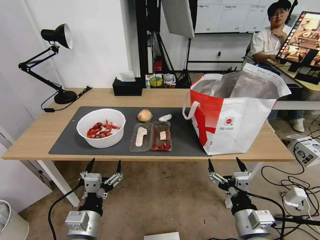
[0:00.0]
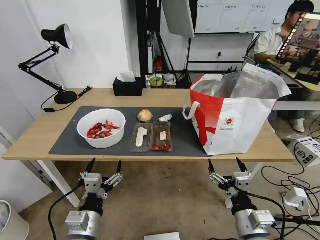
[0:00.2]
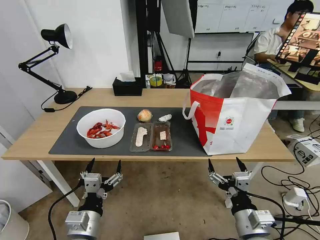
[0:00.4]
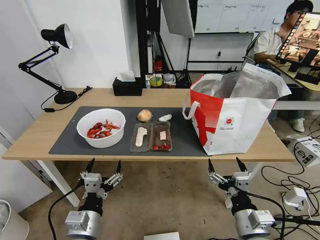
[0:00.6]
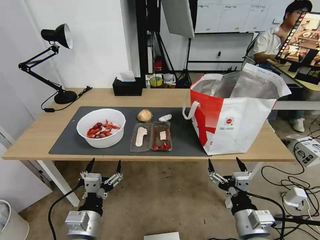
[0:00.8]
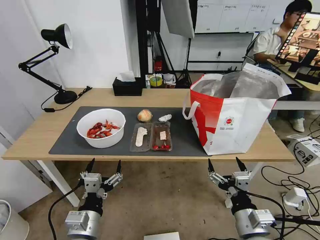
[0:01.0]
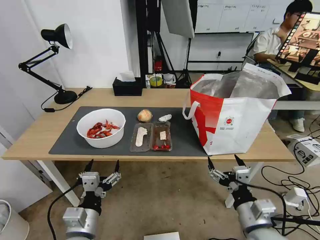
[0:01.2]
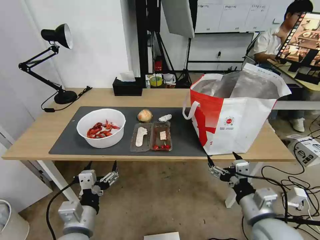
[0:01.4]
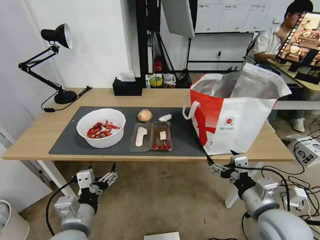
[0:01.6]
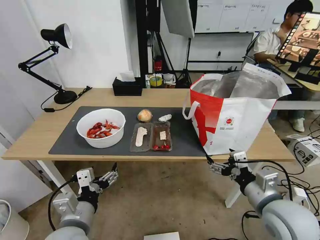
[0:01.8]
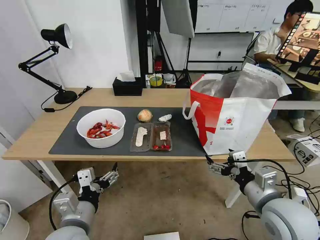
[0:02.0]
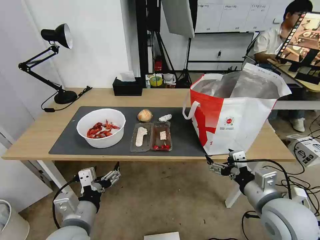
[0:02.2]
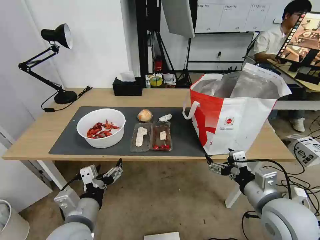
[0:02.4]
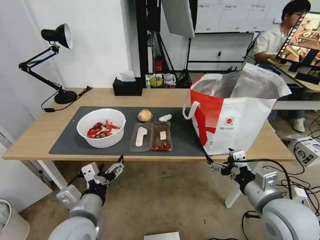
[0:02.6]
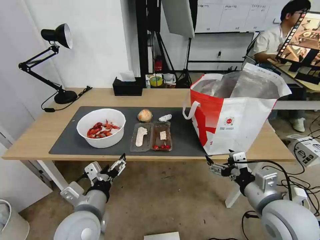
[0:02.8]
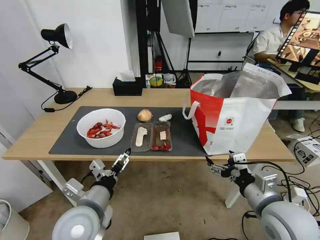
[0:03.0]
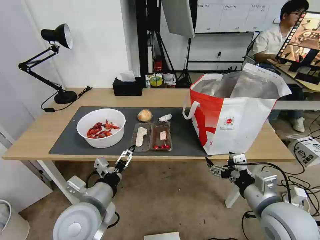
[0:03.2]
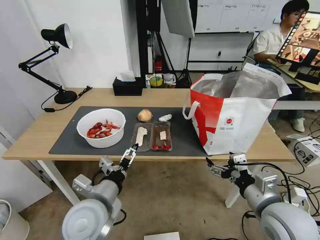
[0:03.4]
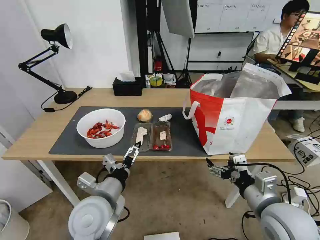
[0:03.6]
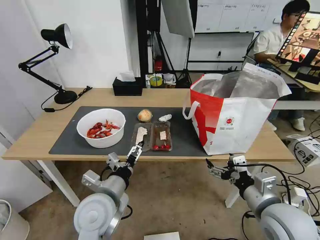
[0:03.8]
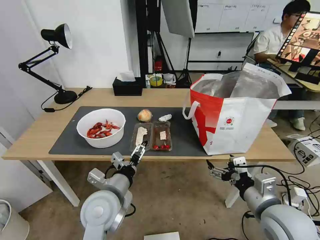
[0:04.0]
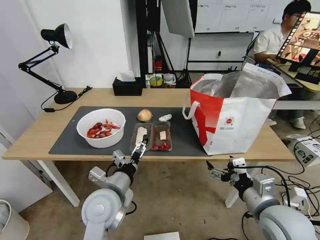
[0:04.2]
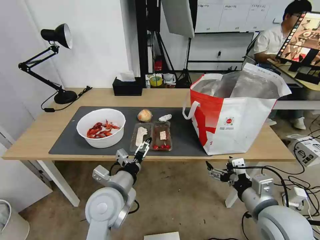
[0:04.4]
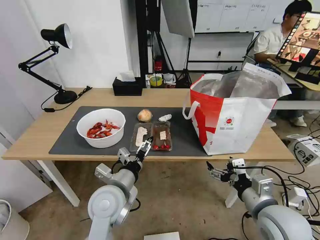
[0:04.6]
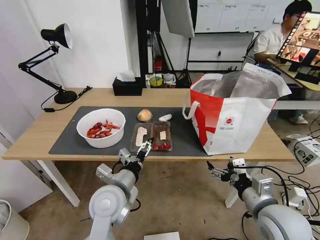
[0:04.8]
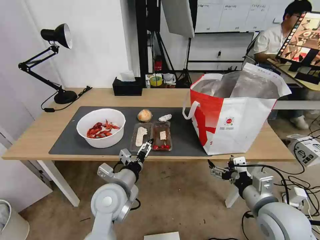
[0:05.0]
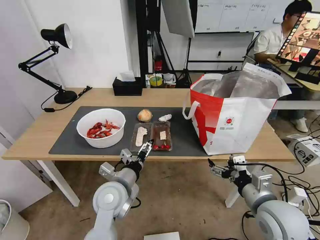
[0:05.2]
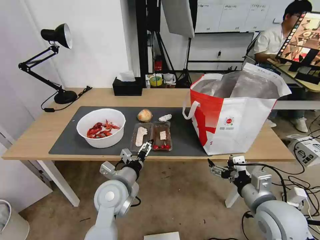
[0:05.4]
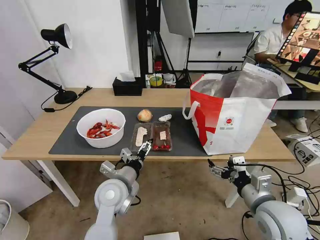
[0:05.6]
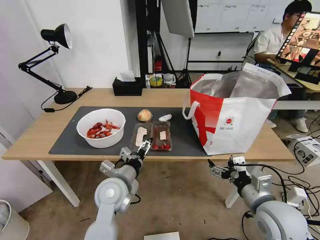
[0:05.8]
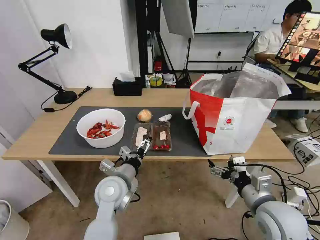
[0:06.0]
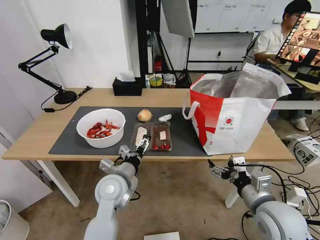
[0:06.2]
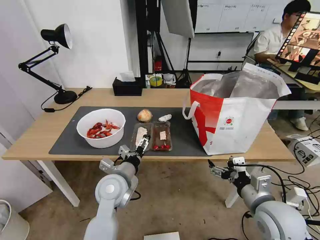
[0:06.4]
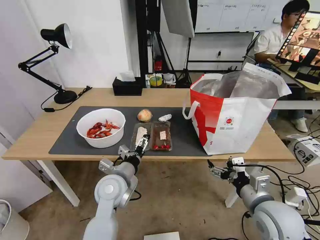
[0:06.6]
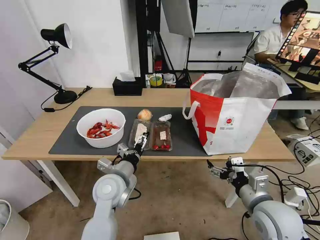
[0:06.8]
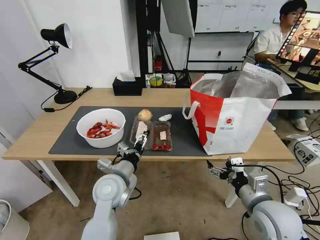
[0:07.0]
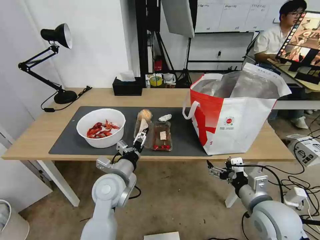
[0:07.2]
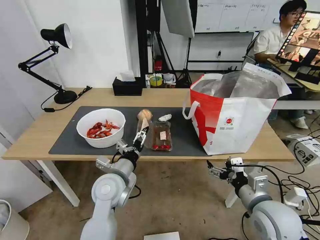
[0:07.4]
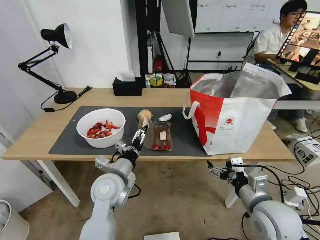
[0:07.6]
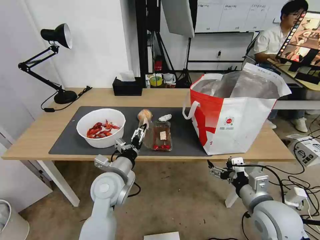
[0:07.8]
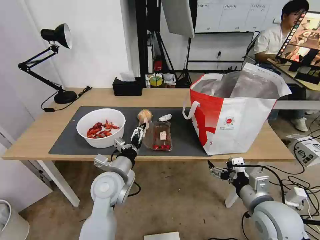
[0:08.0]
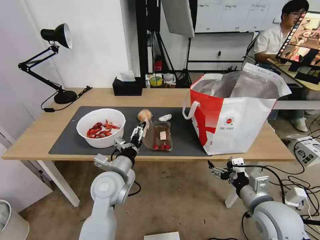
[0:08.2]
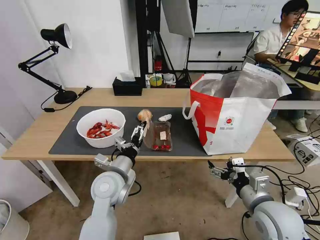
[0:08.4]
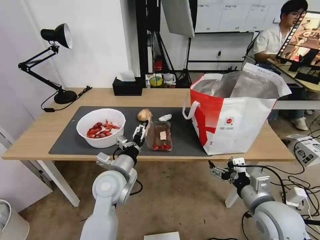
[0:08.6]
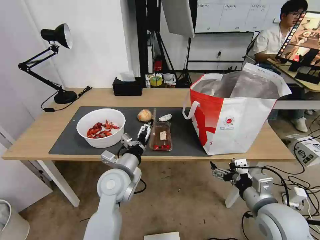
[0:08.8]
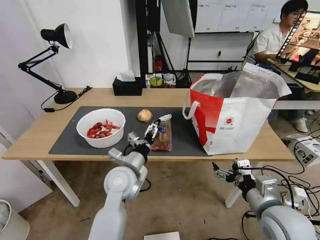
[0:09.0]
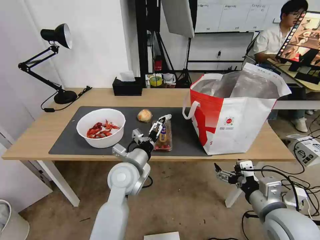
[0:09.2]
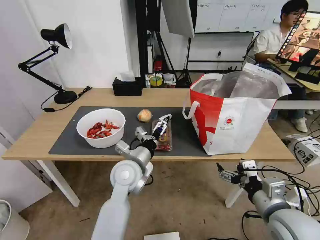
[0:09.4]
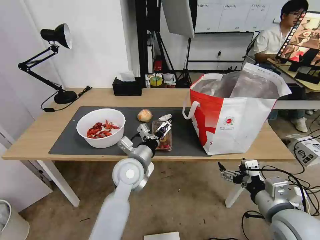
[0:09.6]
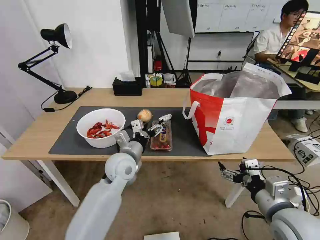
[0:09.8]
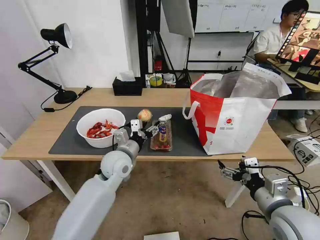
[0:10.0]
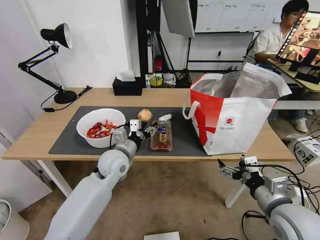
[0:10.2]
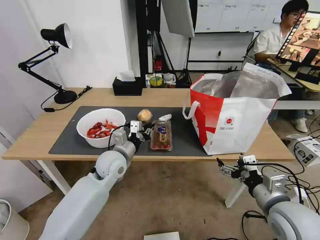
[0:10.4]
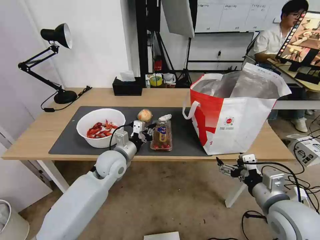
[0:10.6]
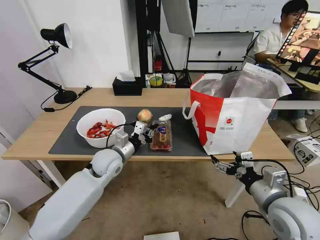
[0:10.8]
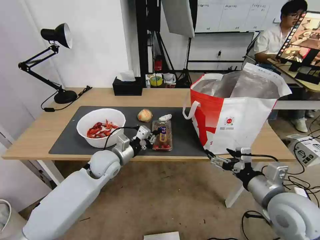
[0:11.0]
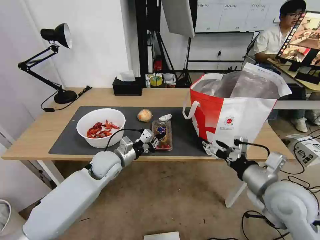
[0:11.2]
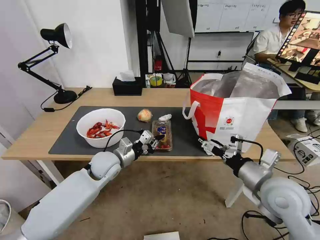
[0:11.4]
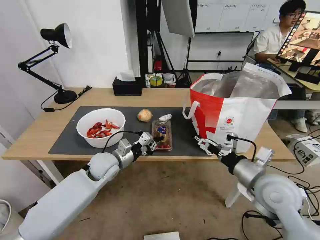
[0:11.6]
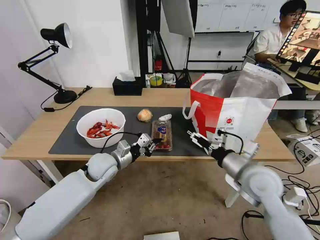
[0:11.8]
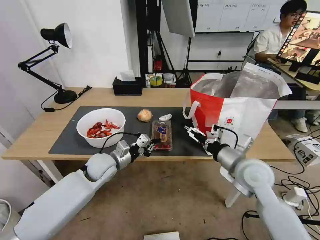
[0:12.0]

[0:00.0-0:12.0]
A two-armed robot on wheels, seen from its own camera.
Task of the whole recording: Pick up the trash from the table and place it into the takeout bag.
0:01.6 to 0:03.0: The left gripper moves approximately 5 cm.
0:03.0 to 0:04.4: The left gripper shifts roughly 5 cm forward.
0:04.4 to 0:06.0: The left gripper moves forward, about 5 cm.
0:06.0 to 0:09.0: The grippers stay close to where they were, moving slightly.
0:09.0 to 0:10.4: The left gripper heads forward, covering some 5 cm, and closes.
0:10.4 to 0:12.0: The left gripper moves about 5 cm, while the right gripper moves forward, roughly 10 cm.

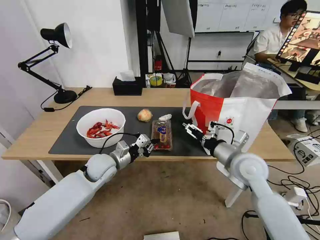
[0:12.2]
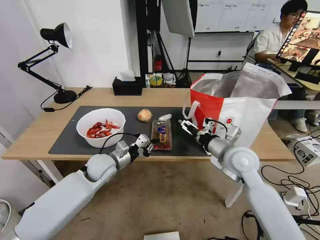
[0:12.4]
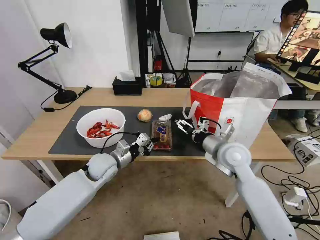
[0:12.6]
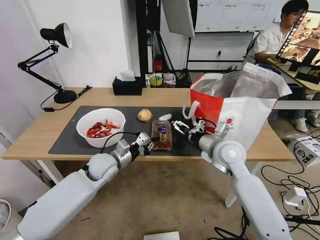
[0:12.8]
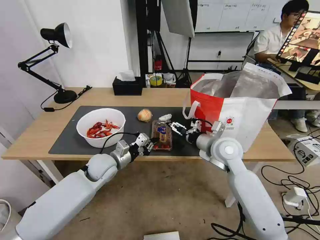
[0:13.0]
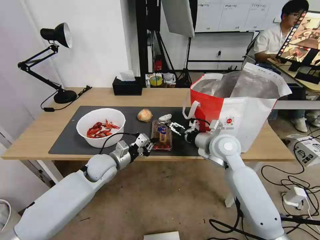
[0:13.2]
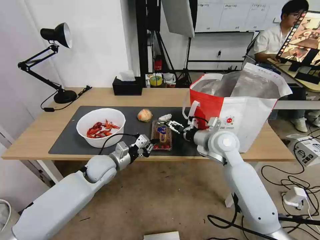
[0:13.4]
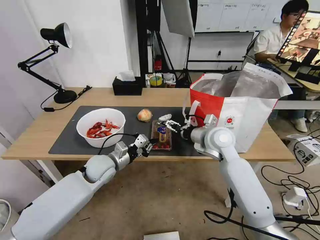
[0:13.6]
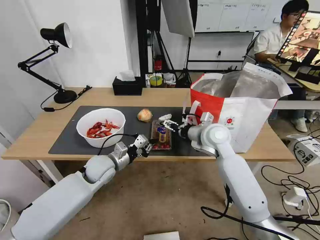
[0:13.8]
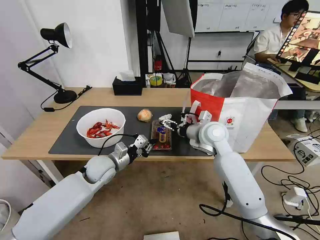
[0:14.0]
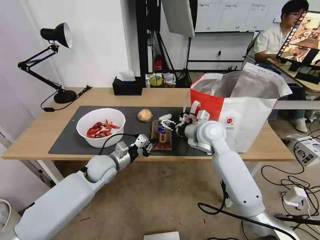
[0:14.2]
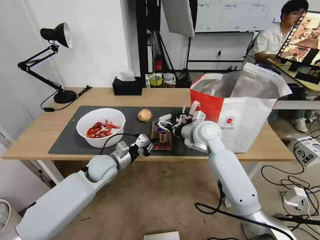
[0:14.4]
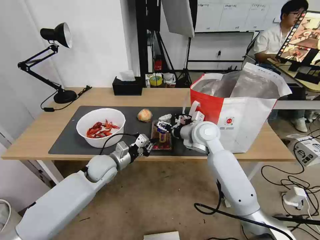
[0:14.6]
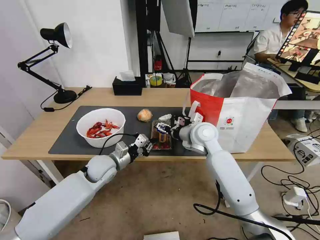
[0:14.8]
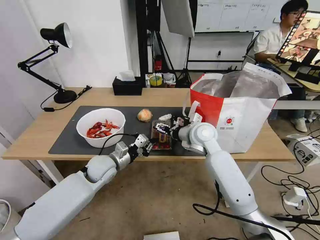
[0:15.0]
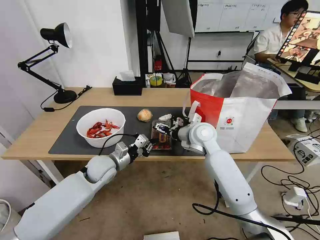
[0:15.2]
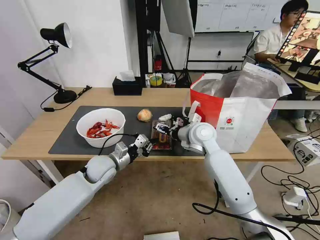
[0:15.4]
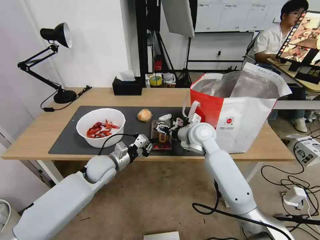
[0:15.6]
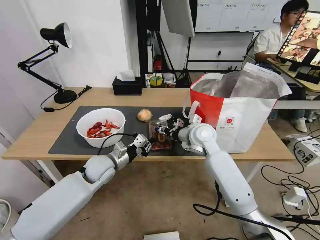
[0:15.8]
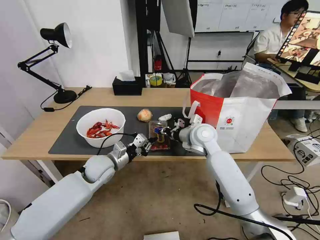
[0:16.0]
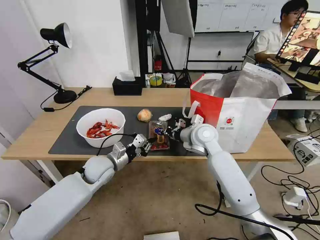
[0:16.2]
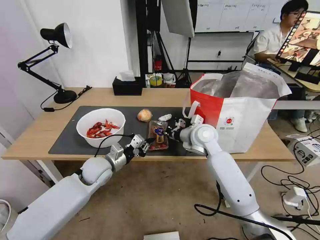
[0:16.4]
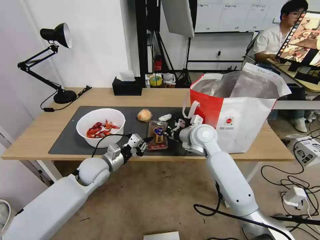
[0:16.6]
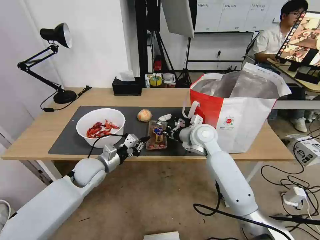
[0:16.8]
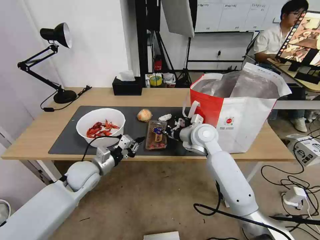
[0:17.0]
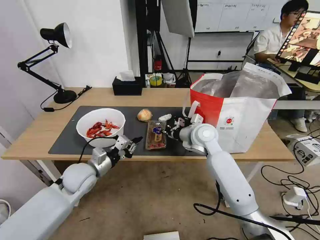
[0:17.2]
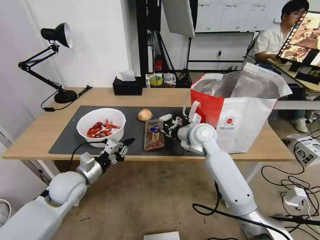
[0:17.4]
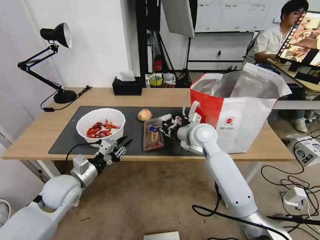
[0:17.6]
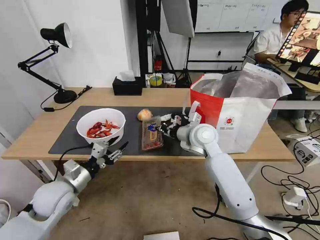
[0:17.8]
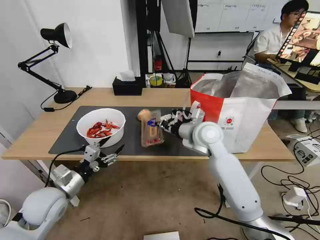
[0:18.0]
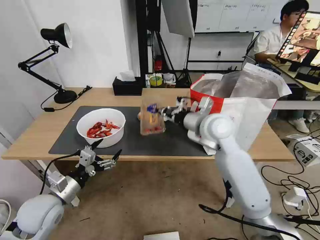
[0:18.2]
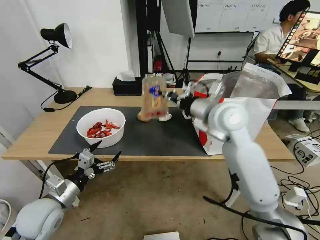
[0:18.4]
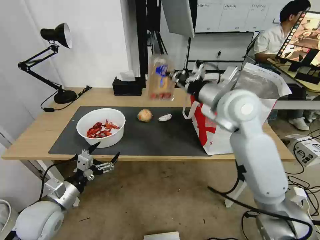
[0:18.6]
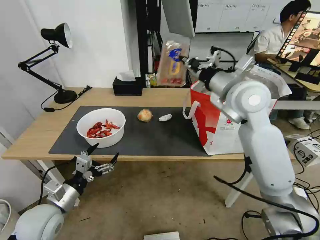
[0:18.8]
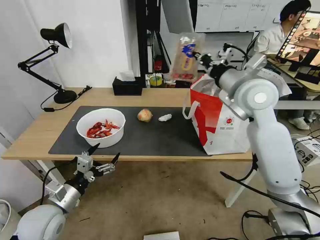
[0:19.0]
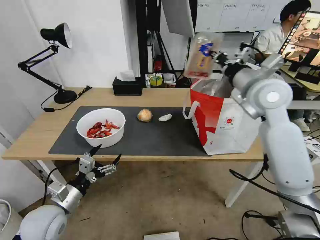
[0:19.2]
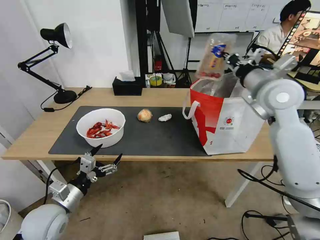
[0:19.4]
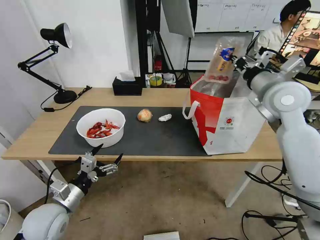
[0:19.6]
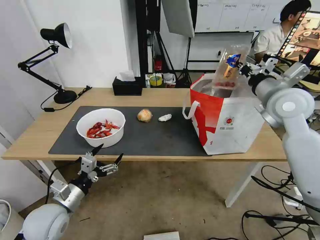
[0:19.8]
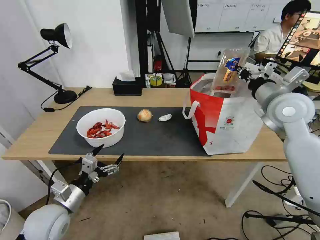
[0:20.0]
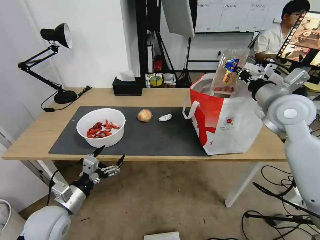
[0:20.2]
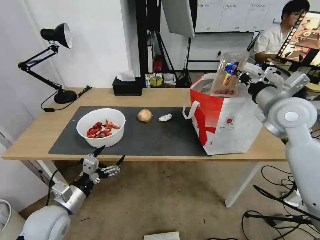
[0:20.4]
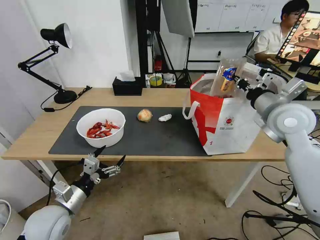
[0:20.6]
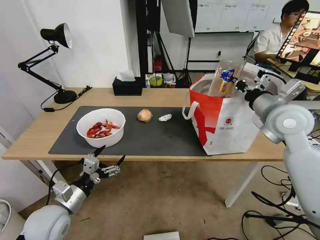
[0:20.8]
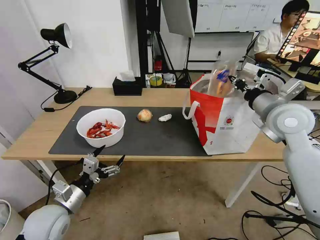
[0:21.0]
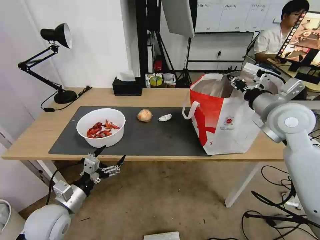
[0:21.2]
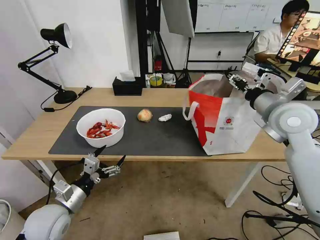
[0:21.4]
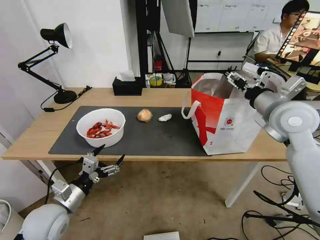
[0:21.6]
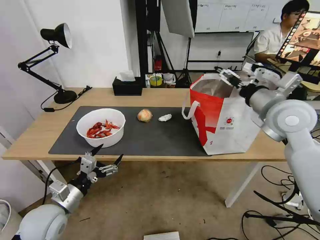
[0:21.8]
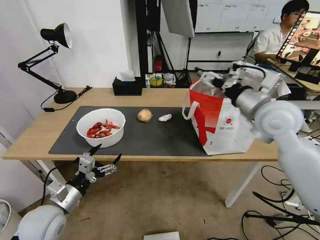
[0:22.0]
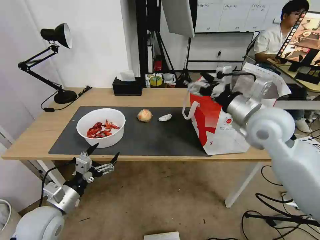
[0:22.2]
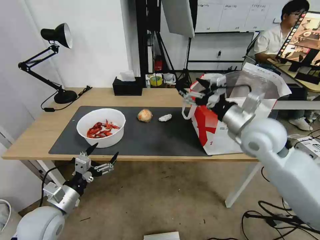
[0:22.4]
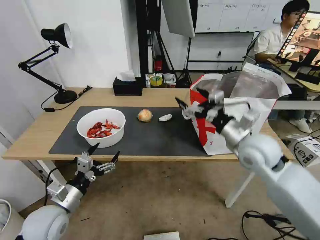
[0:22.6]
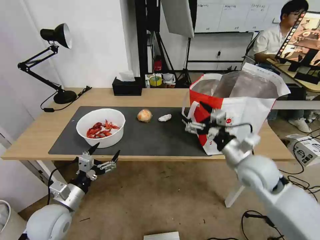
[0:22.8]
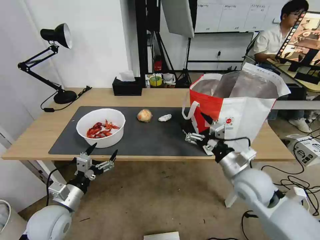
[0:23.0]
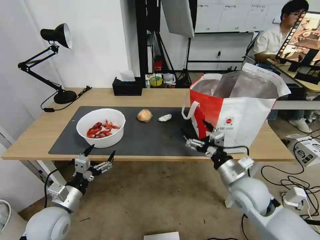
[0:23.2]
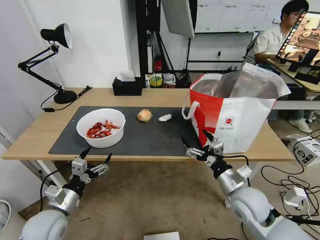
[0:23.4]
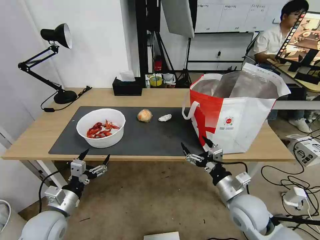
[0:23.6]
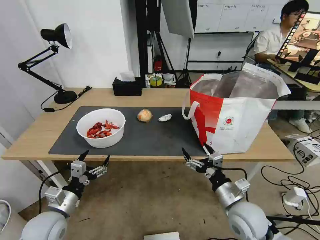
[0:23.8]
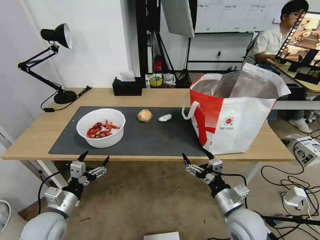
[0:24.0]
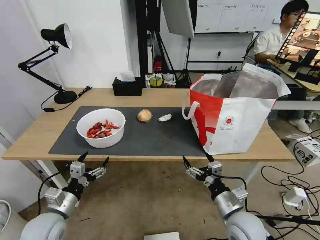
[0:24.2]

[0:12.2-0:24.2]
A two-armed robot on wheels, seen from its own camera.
Task of the whole recording: Pick up the trash from the table and place it into the takeout bag.
0:12.2 to 0:13.8: The right gripper shifts some 10 cm forward and to the left.
0:13.8 to 0:15.2: The grippers move only a little.
0:15.2 to 0:16.6: The right gripper closes.
0:16.6 to 0:18.2: The right gripper heads upward, covering about 10 cm. Meanwhile the left gripper heads backward and to the left, covering about 15 cm, and opens.
0:18.2 to 0:19.8: The right gripper travels to the right and upward by about 20 cm.
0:19.8 to 0:21.2: The grippers make only small movements.
0:21.2 to 0:22.6: The right gripper moves downward and to the left, approximately 10 cm, and opens up.
0:22.6 to 0:24.2: The right gripper moves downward and backward, roughly 20 cm.
